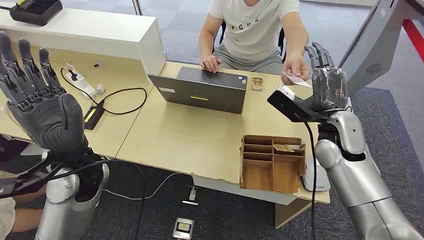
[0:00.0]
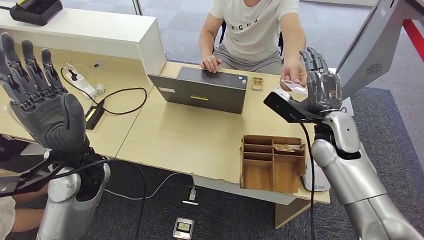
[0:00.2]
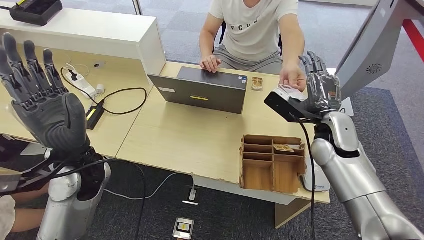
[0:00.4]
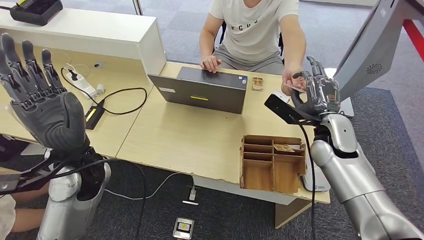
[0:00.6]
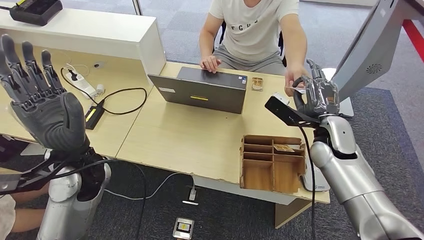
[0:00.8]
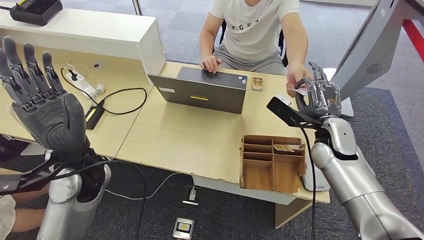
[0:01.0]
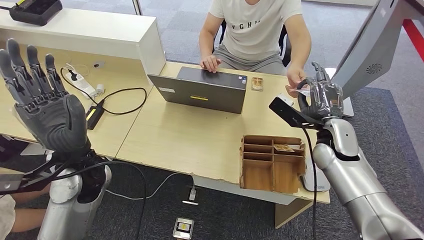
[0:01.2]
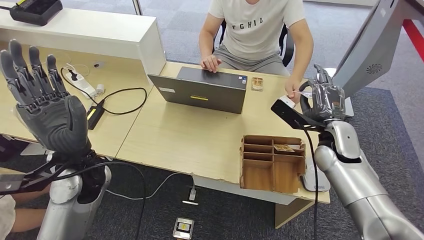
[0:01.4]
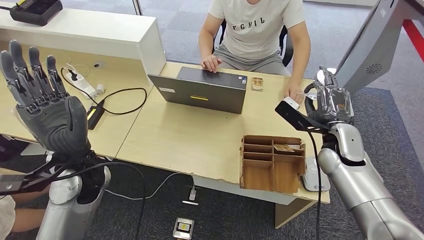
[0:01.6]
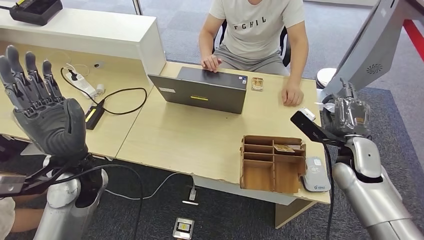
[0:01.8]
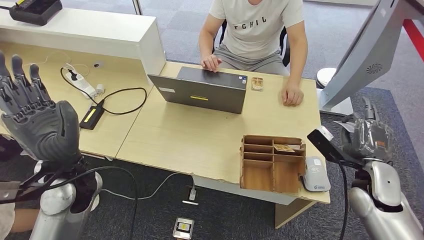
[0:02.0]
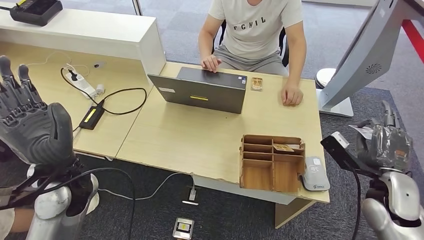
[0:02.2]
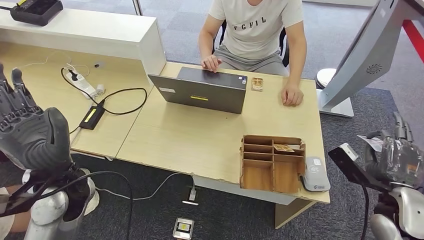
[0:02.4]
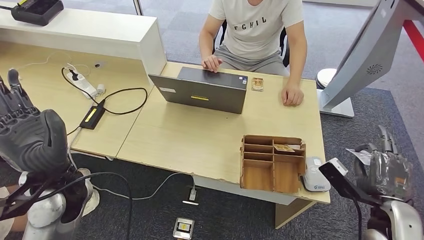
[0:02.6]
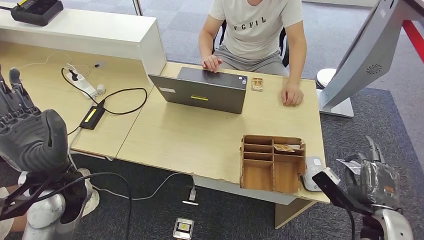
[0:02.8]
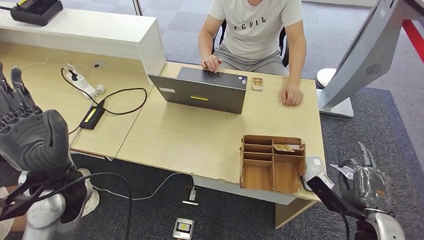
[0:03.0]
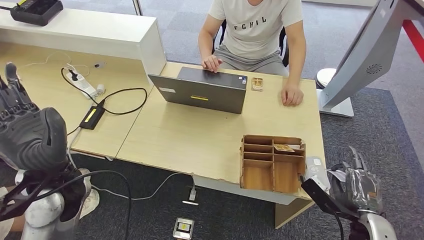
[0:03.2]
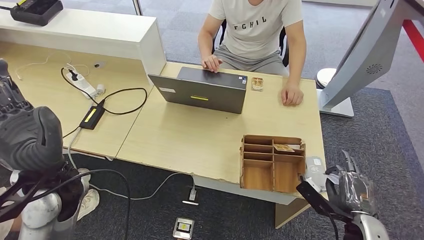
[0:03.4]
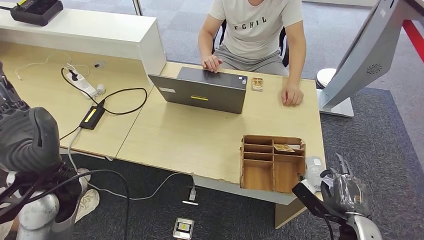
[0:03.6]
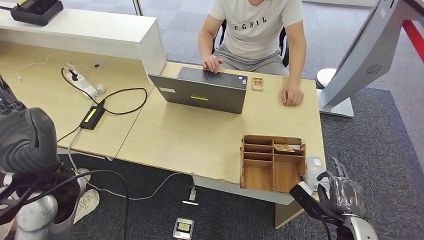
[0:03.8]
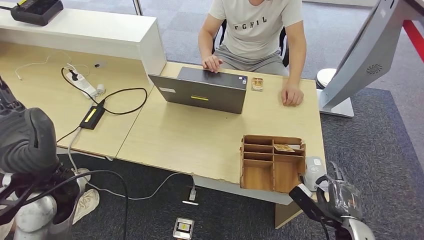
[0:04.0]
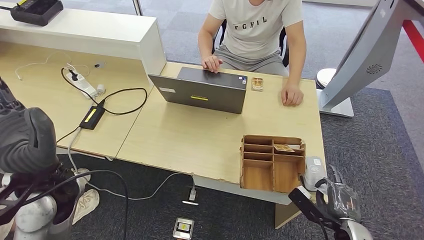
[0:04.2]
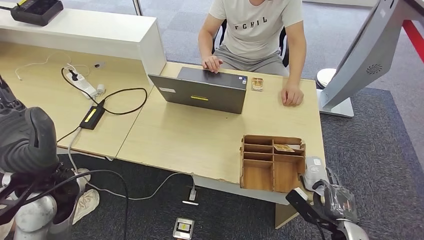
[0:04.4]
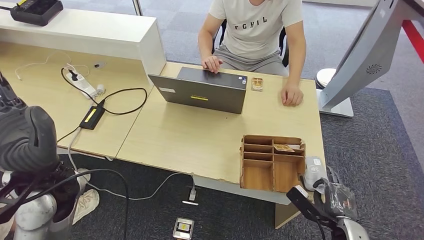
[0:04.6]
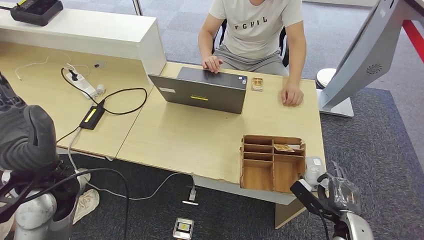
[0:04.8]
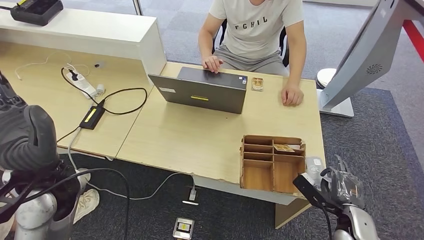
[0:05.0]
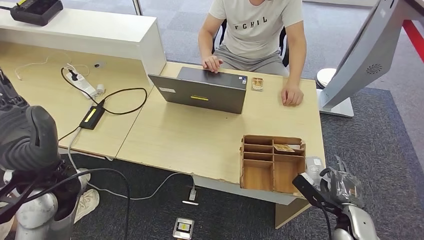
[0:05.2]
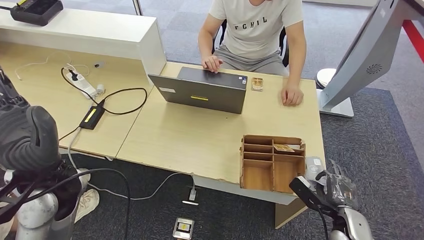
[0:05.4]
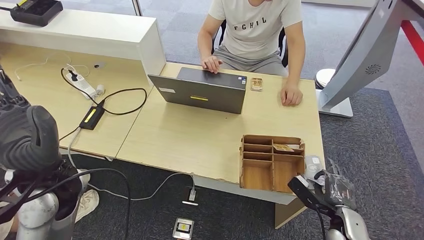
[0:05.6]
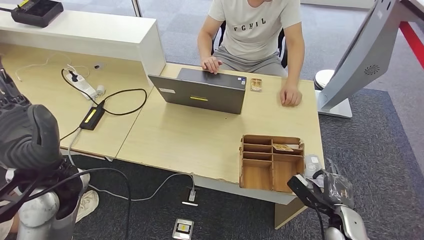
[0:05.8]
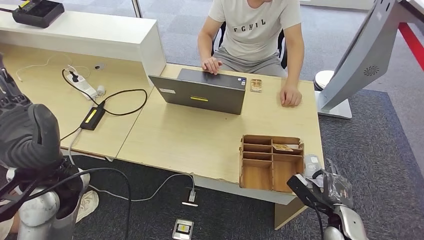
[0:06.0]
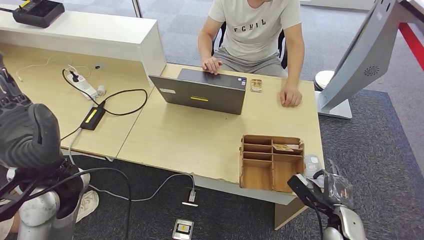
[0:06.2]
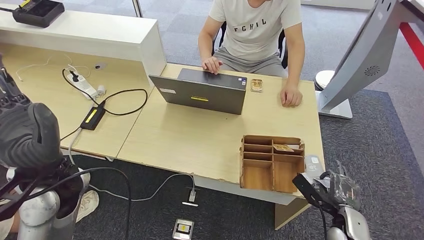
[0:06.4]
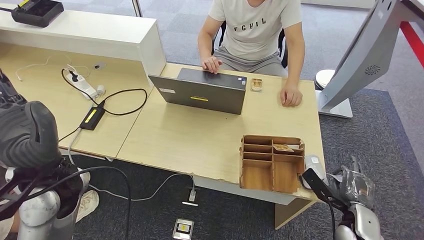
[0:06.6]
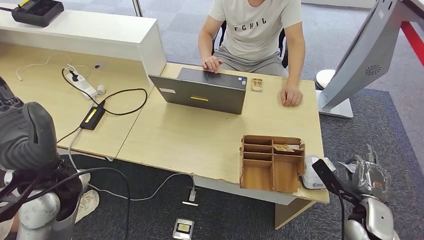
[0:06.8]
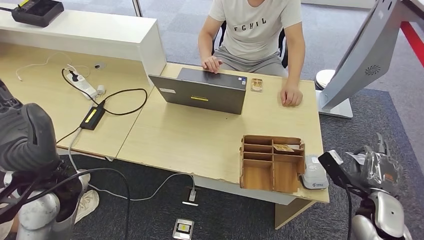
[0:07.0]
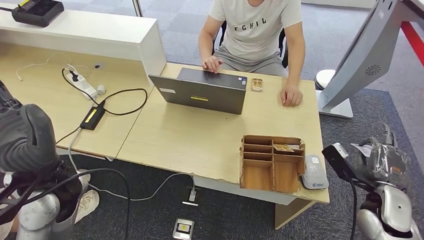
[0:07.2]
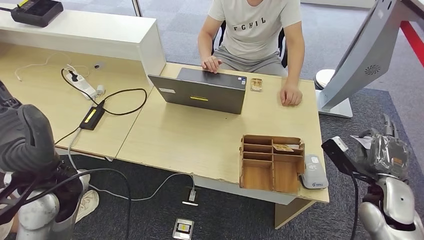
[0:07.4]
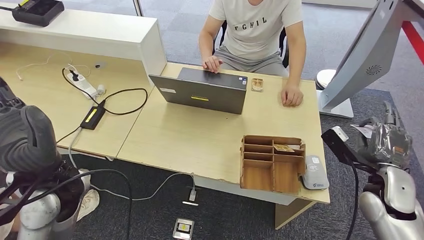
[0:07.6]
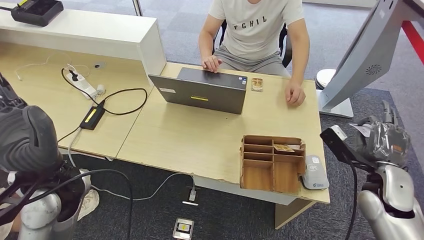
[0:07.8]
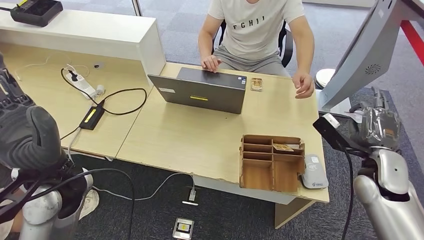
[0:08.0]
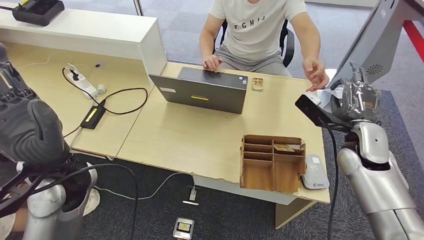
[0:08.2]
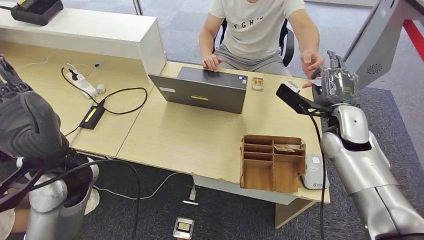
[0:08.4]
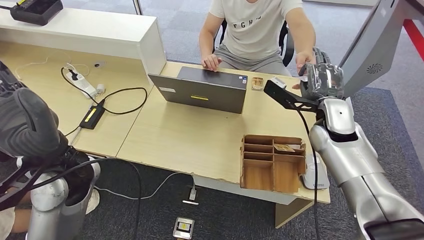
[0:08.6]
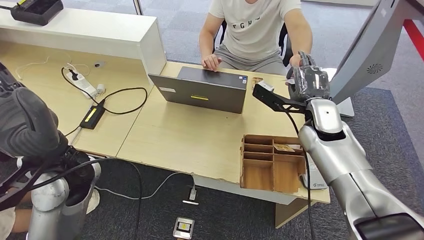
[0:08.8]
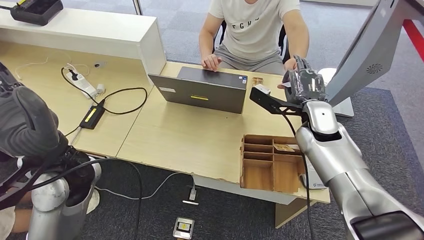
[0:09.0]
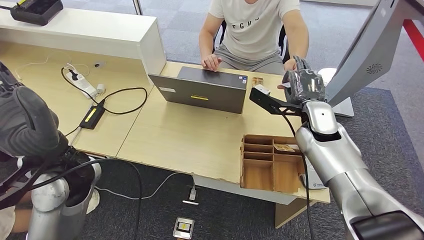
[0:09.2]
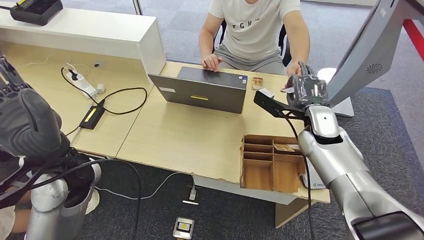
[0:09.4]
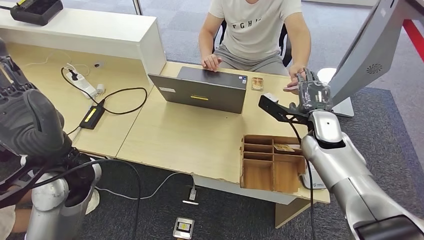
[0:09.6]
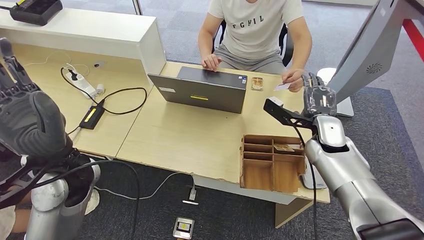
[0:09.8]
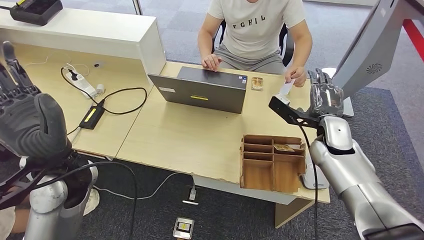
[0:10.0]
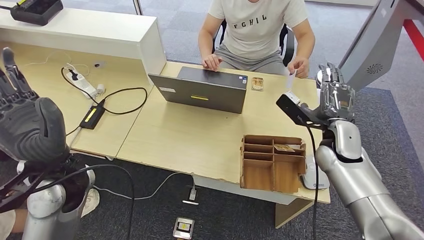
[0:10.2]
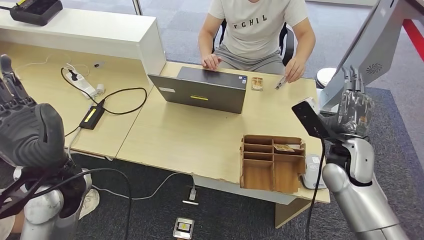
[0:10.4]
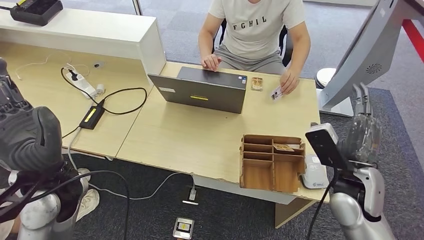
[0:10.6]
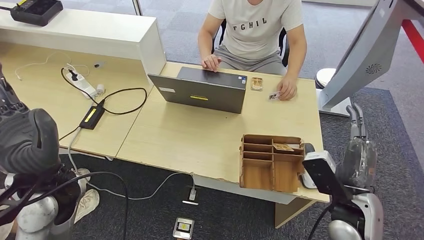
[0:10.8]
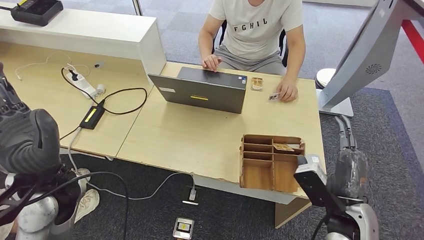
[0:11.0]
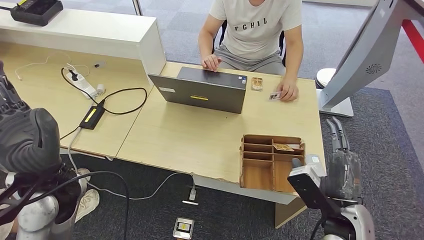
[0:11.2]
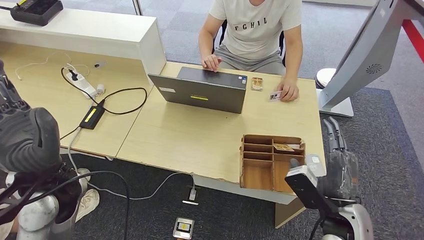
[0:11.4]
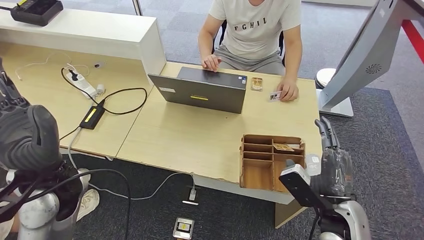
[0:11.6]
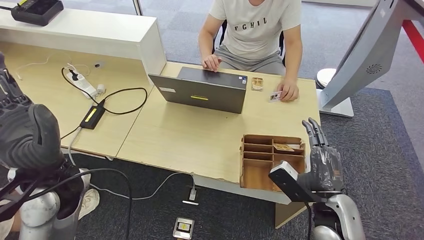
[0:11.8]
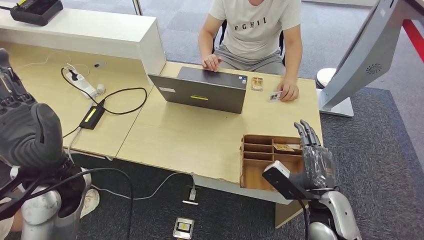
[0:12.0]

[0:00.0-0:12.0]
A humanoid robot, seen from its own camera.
Step, 0:00.0 to 0:02.2: Take the ID card from the person's hand.
Step, 0:02.6 to 0:07.2: Place the ID card on the card reader.
Step, 0:07.4 to 0:10.4: Hand the ID card to the person.
0:03.0 to 0:04.4: The right hand is displaced downward by about 5 cm.
0:04.4 to 0:06.0: The hands stay close to where they were, moving slightly.
0:06.0 to 0:07.6: The right hand shifts some 15 cm upward and forward.
0:09.0 to 0:10.4: The right hand shifts approximately 10 cm to the right and backward.
0:10.4 to 0:12.0: The right hand moves backward and downward, roughly 15 cm.

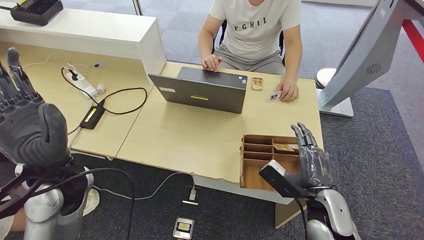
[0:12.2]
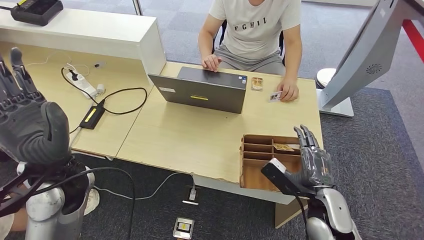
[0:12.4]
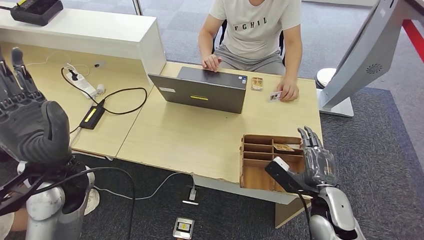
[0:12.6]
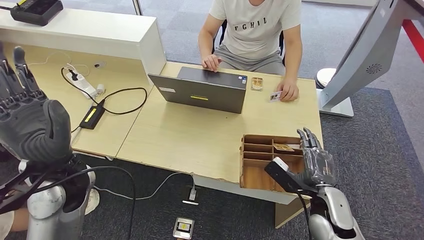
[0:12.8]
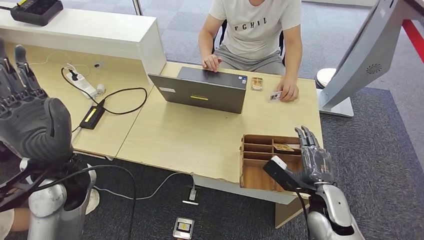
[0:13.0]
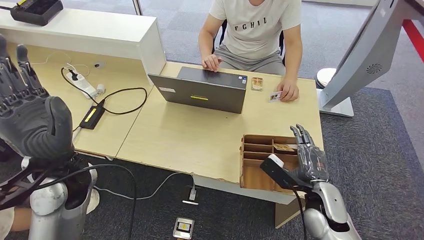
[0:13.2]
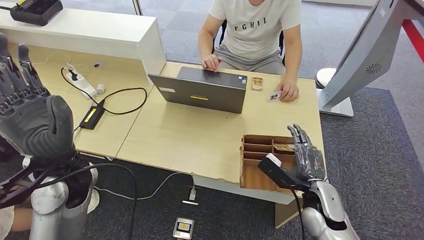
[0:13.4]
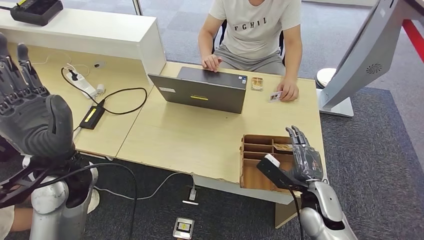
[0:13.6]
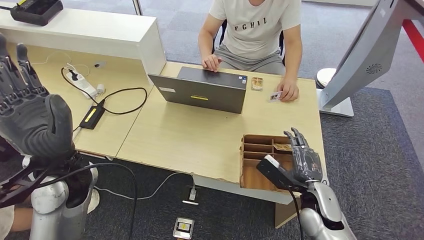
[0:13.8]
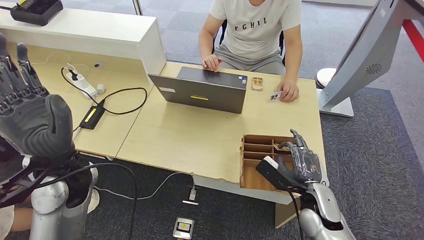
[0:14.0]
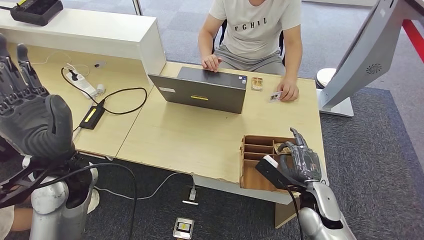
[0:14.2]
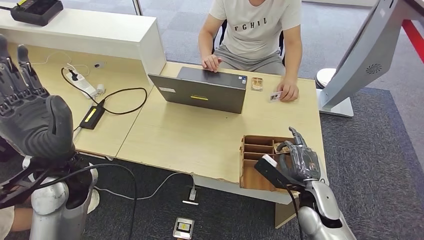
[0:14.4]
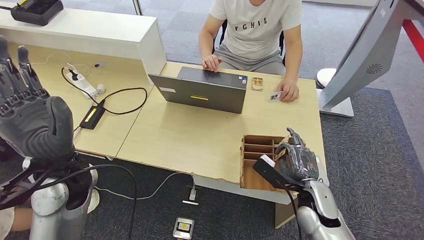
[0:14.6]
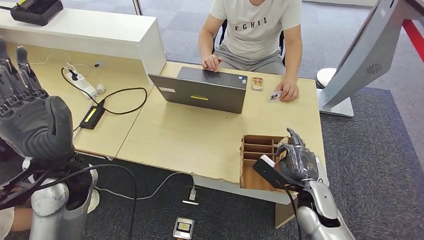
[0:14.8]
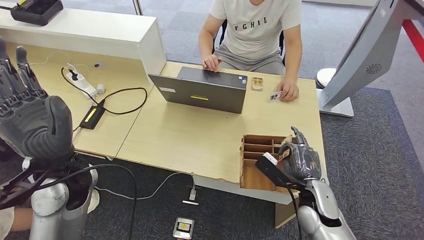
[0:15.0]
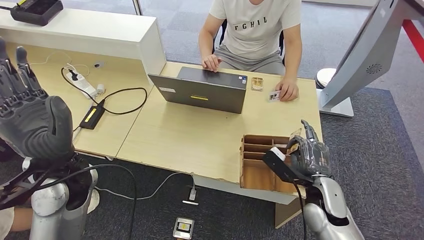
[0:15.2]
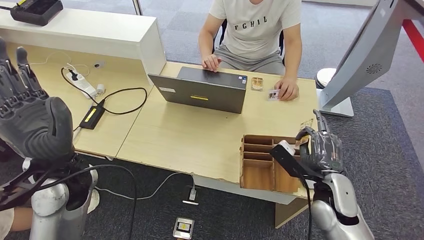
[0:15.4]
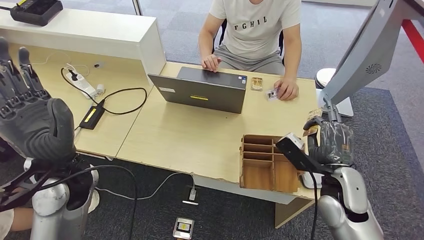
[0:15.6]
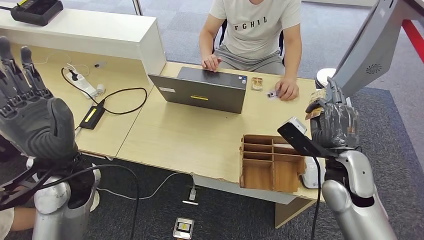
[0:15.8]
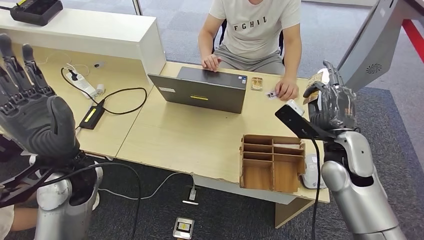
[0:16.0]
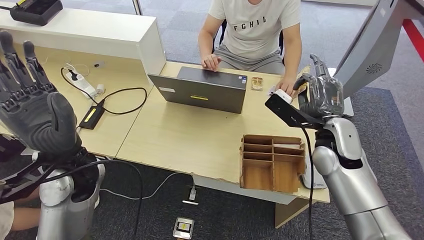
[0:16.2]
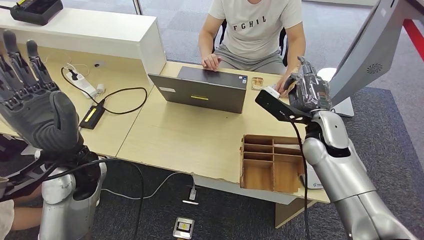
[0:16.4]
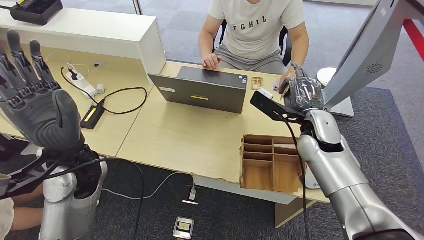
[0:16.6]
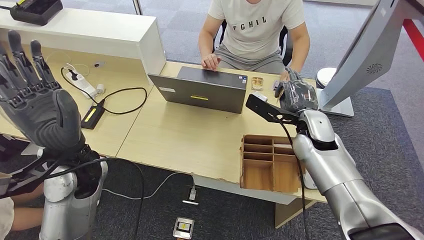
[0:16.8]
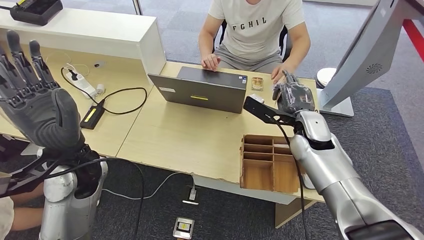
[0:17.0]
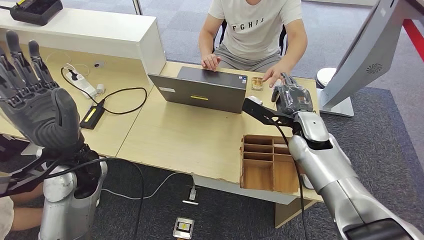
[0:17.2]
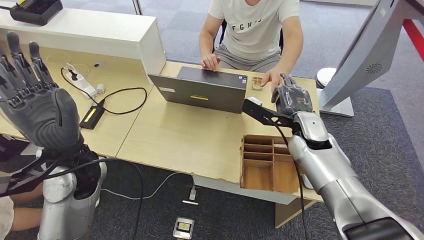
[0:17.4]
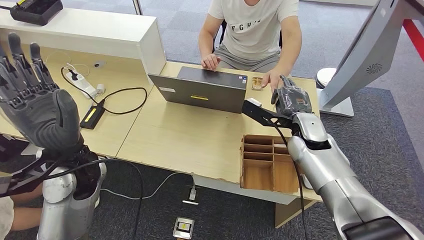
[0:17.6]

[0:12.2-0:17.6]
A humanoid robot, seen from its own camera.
Step, 0:13.8 to 0:16.2: Pick up the room key from the key card box.
0:12.2 to 0:13.6: There are only small adjustments of the hands.
0:13.6 to 0:15.0: Neither hand changes place.
0:15.0 to 0:16.2: The right hand heads upward and forward, covering some 15 cm.
0:16.2 to 0:17.6: The right hand moves roughly 5 cm.
